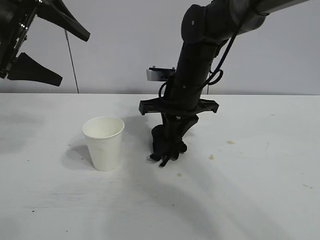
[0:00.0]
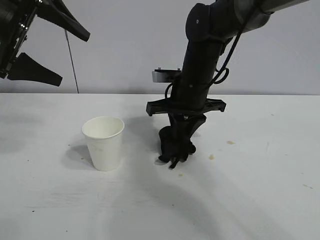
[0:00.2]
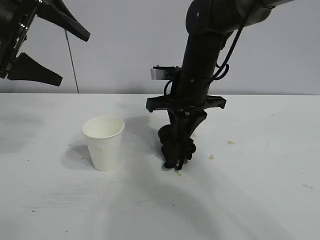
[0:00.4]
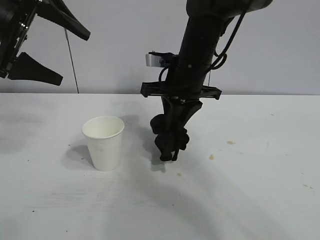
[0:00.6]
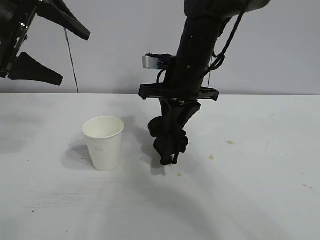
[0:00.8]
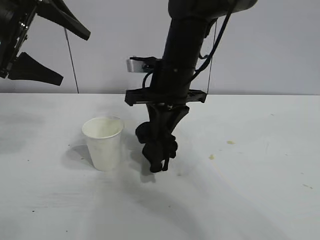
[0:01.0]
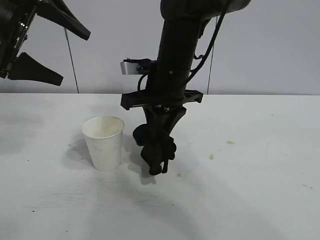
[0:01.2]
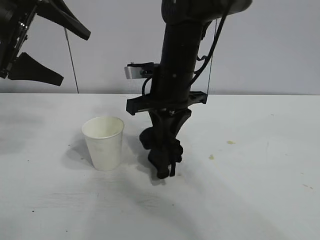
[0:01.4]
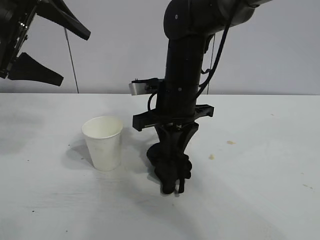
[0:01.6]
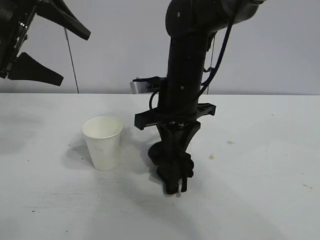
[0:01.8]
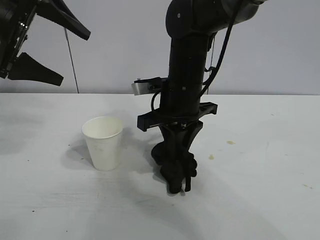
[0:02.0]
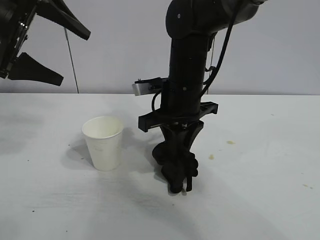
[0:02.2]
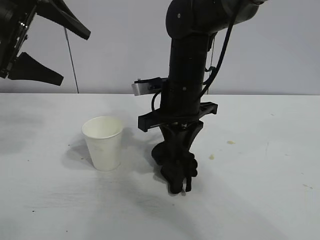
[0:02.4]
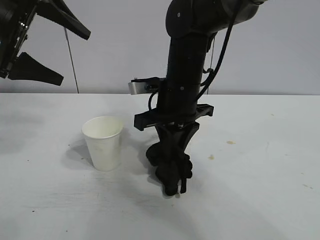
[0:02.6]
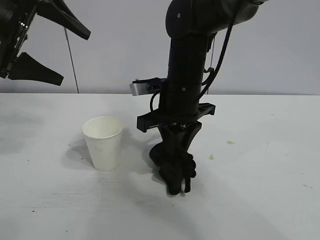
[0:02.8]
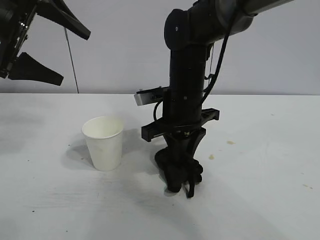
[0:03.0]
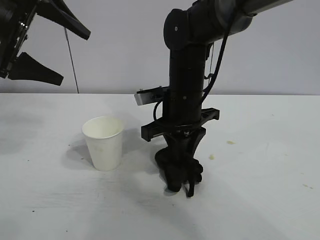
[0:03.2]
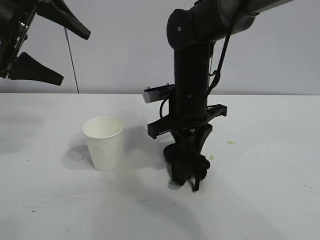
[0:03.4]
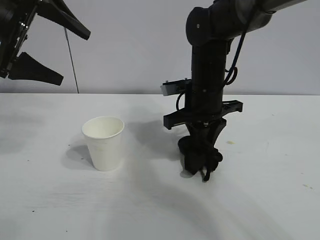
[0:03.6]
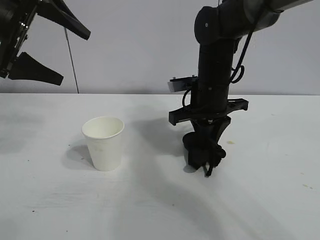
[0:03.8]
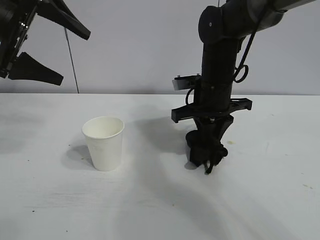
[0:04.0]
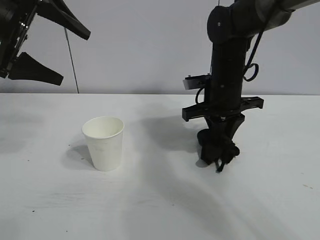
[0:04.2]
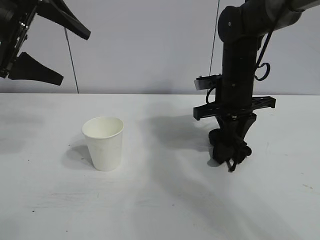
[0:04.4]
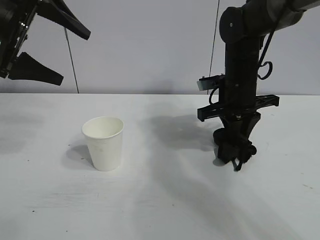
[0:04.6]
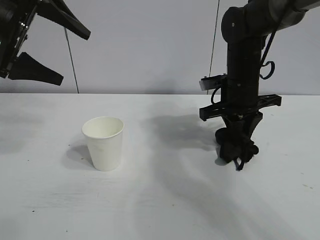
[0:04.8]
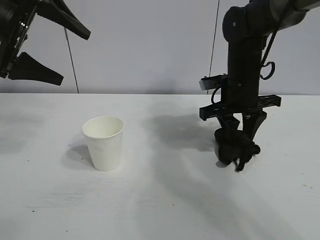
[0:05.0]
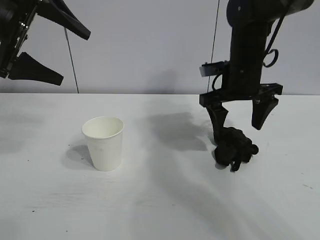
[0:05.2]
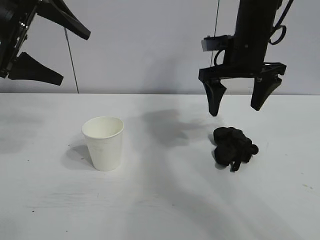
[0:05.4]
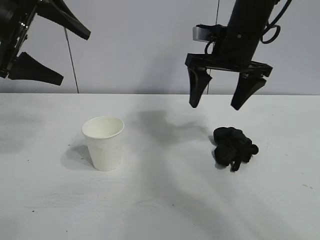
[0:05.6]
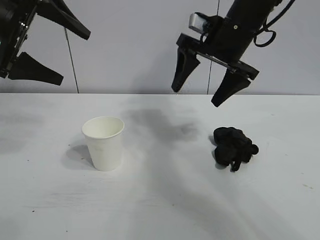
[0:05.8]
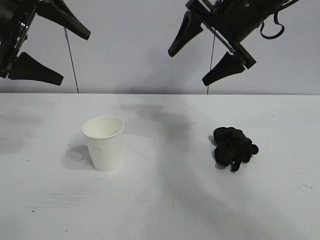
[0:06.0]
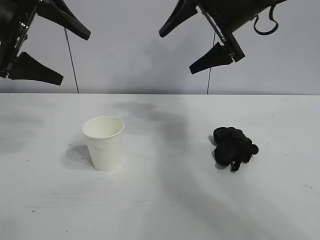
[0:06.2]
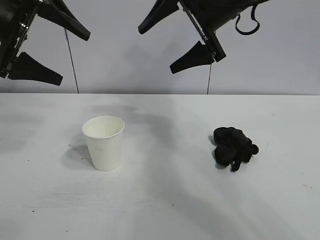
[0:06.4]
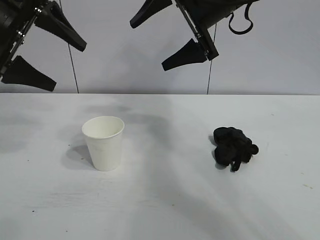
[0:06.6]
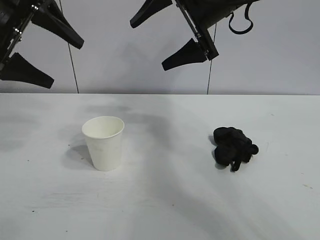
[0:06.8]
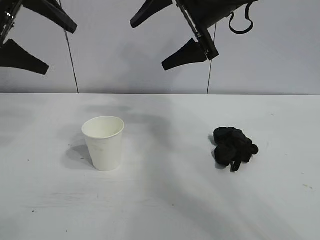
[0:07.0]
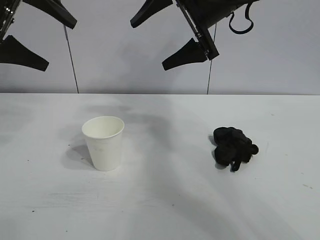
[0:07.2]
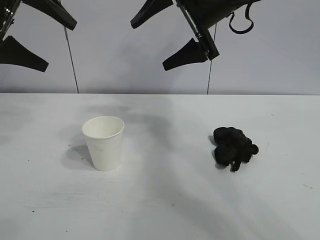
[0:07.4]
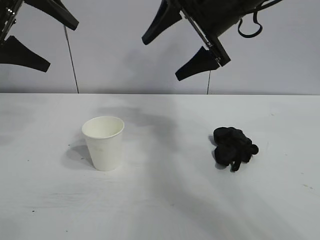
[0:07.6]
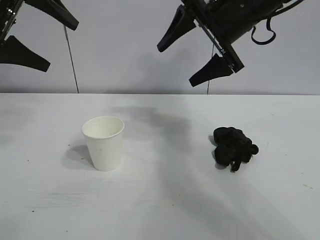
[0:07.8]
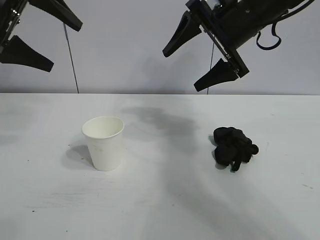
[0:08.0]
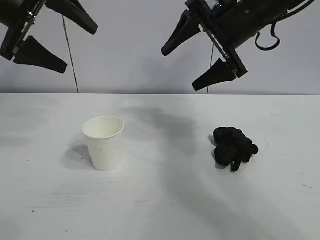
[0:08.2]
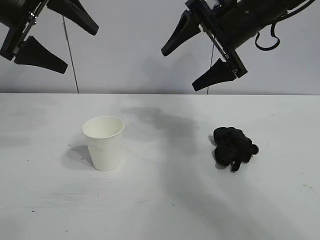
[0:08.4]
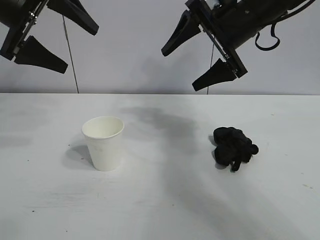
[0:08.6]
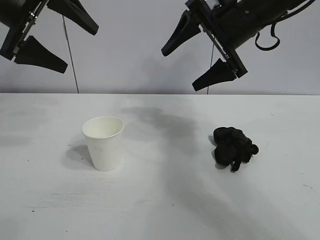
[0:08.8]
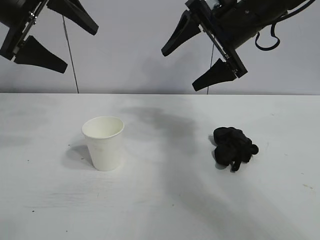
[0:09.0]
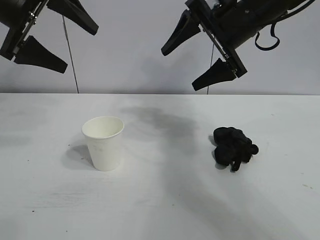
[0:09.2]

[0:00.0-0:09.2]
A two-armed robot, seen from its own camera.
Task of the whole recording: the left gripper pick up the fallen cup and place it upright, the right gripper grasp the black rag and wipe the stain on the table, the right gripper put the black rag back in its original position.
Step, 0:00.0 to 0:04.6: Wipe the stains off the table with the rag with right gripper.
